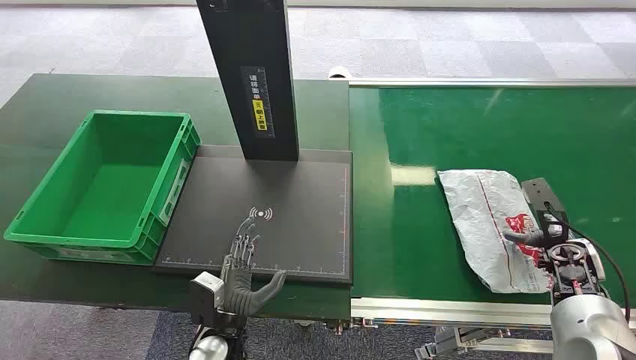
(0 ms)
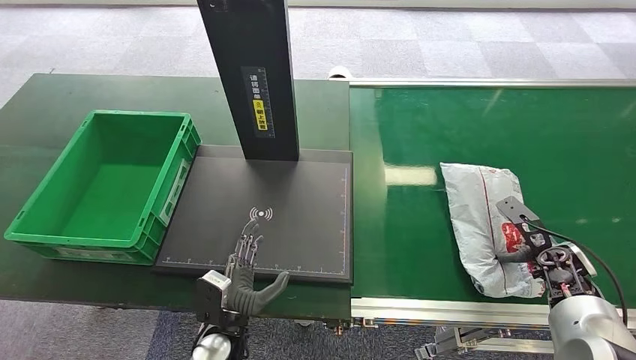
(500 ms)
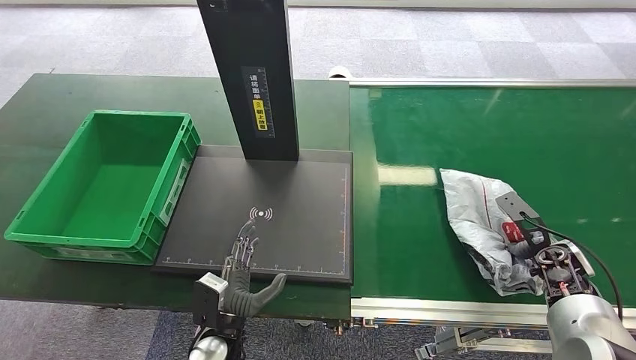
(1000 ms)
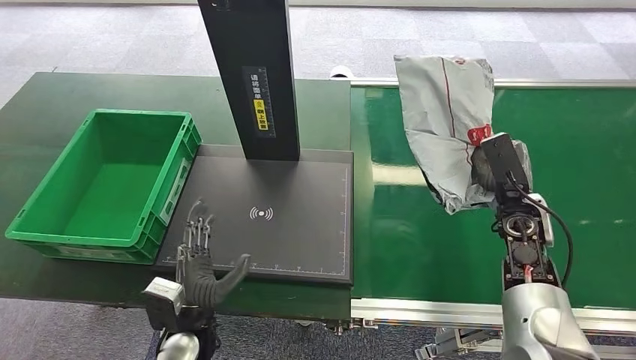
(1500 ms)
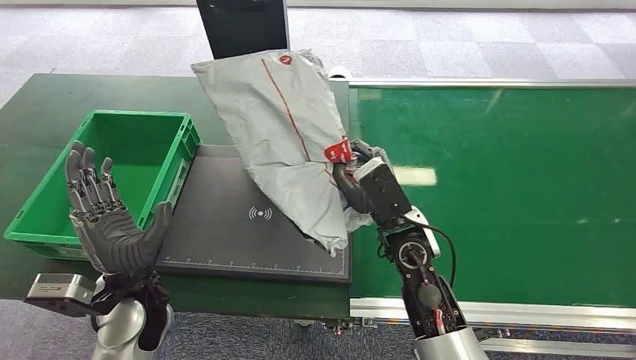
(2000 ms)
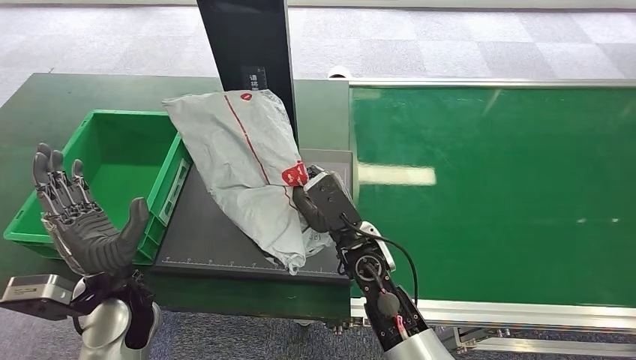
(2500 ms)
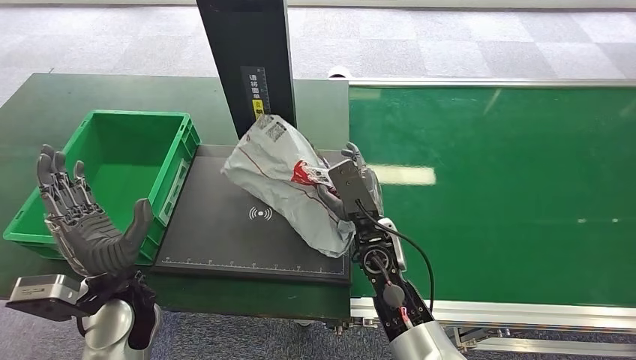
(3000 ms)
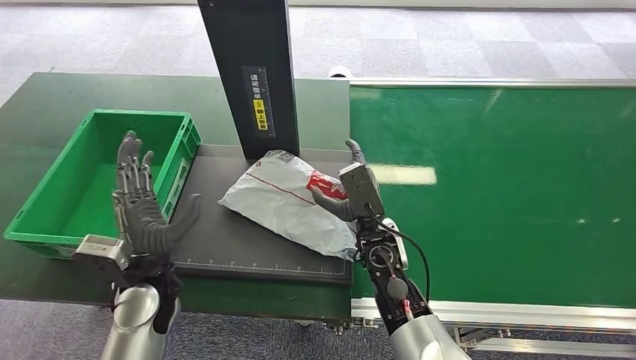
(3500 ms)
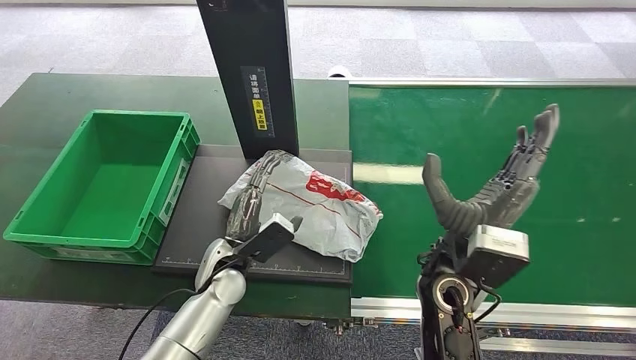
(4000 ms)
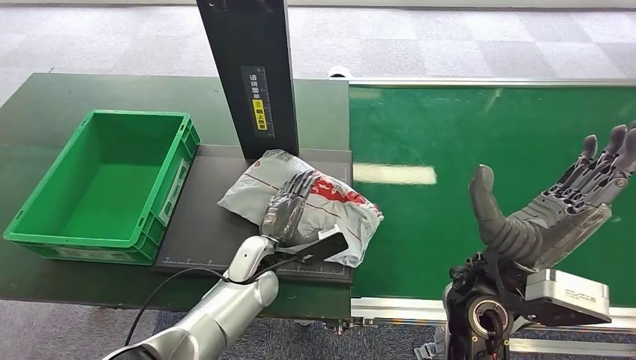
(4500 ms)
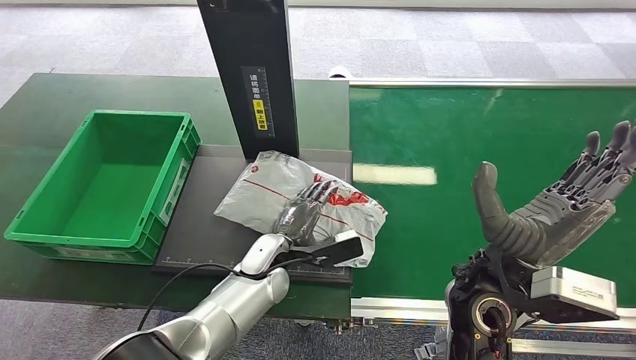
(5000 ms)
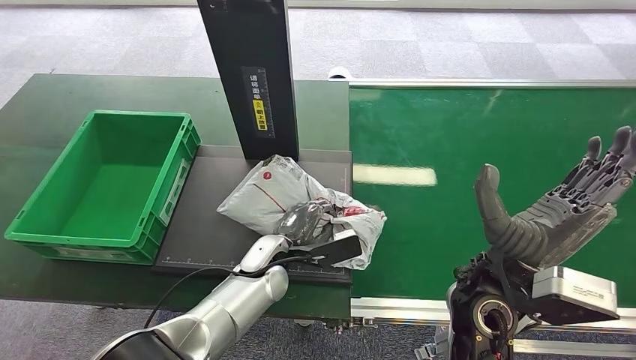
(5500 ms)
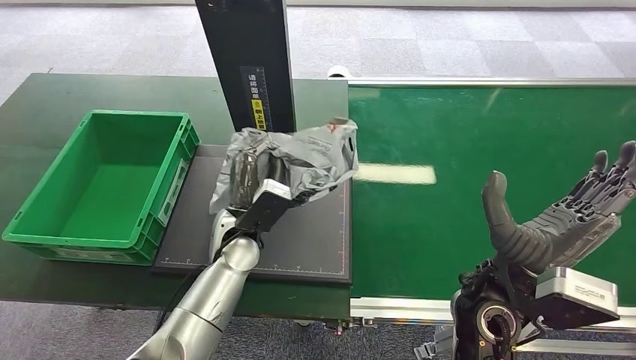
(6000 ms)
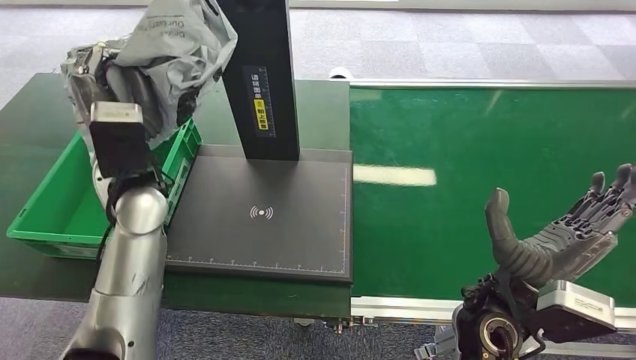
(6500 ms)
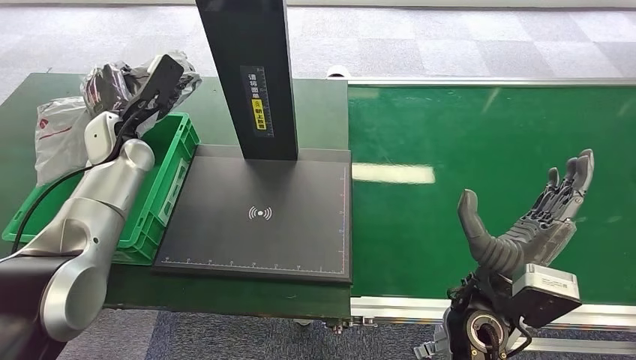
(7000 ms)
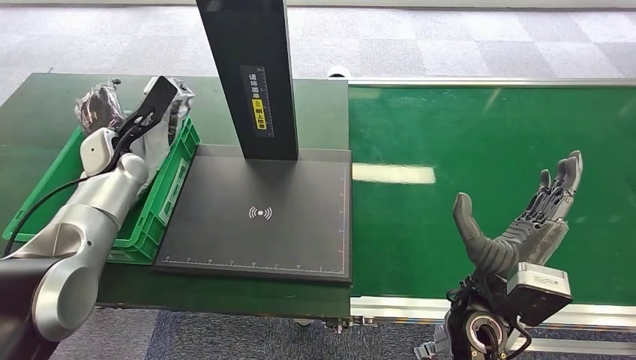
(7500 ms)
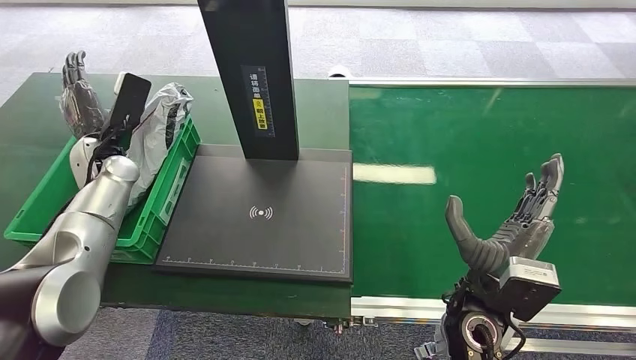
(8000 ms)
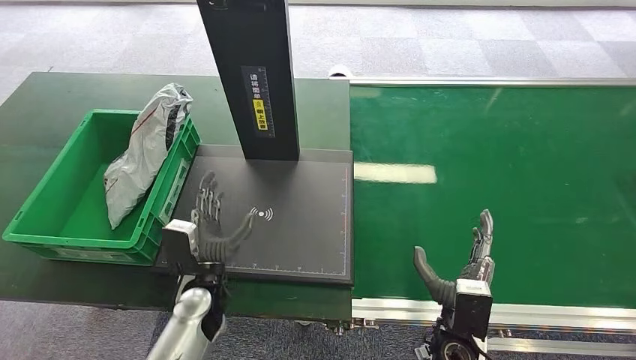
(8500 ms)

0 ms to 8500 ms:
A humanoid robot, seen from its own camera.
Step, 0 ms to 2000 ms: Pick up the package from the conveyor belt.
Step, 2500 ms to 3500 ms: Place the package onto the inbound machine.
Step, 4000 ms to 6500 ms: Pick up the package from the inbound machine.
Step, 7000 ms to 8500 ms: Place the package into the parcel locker.
